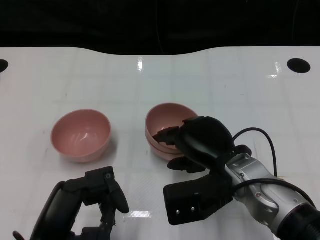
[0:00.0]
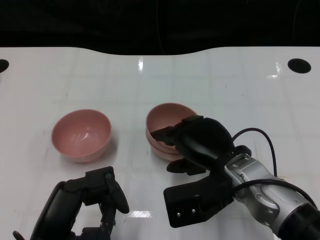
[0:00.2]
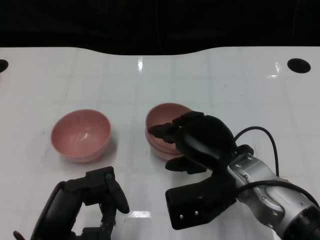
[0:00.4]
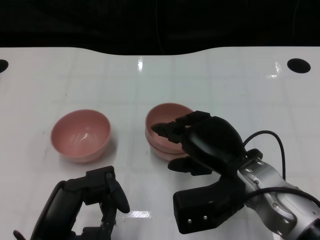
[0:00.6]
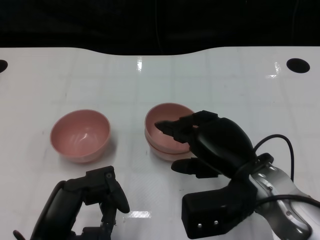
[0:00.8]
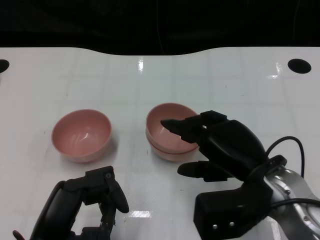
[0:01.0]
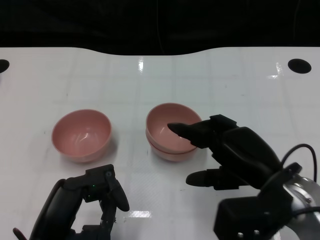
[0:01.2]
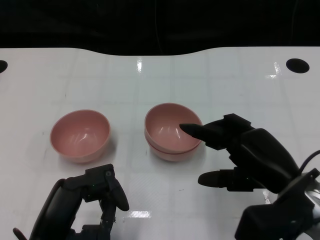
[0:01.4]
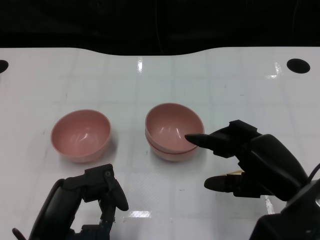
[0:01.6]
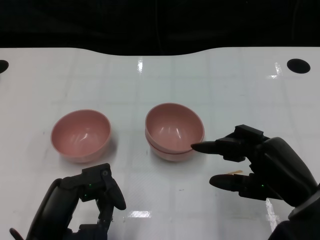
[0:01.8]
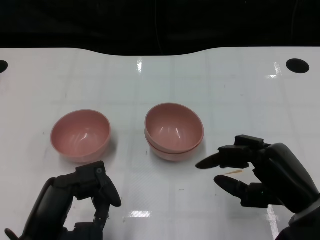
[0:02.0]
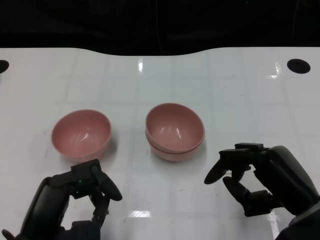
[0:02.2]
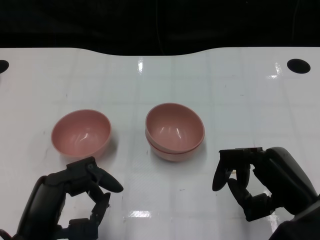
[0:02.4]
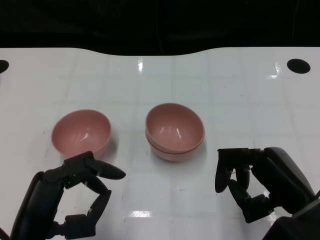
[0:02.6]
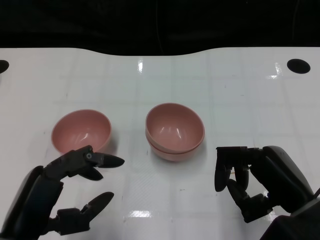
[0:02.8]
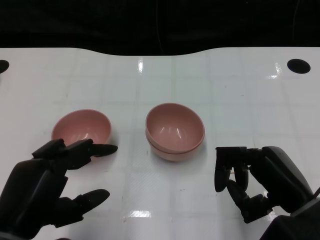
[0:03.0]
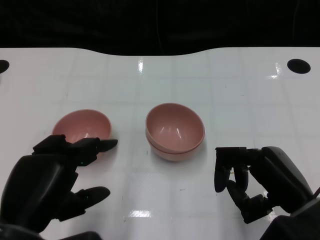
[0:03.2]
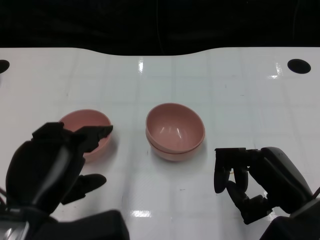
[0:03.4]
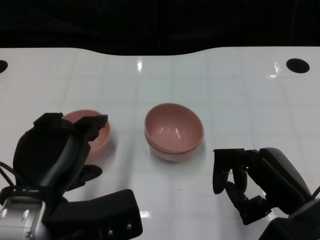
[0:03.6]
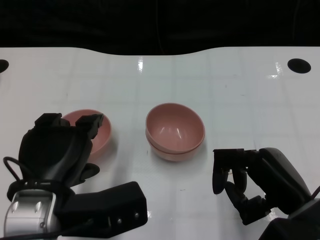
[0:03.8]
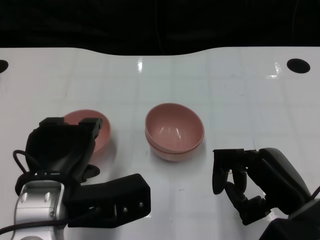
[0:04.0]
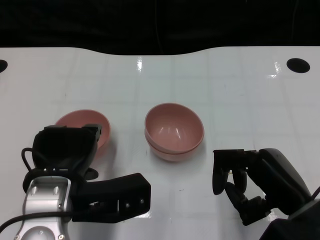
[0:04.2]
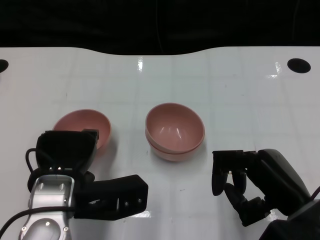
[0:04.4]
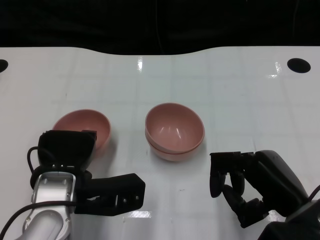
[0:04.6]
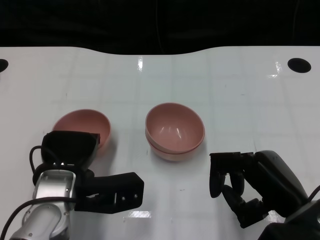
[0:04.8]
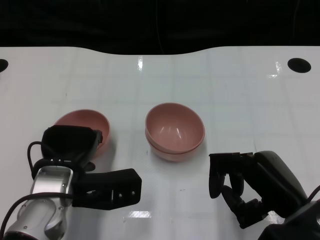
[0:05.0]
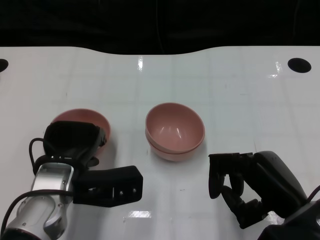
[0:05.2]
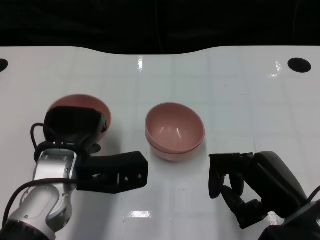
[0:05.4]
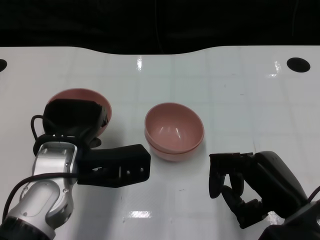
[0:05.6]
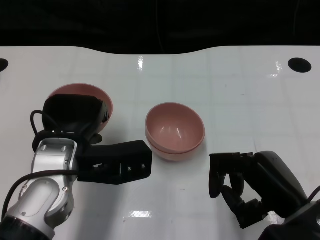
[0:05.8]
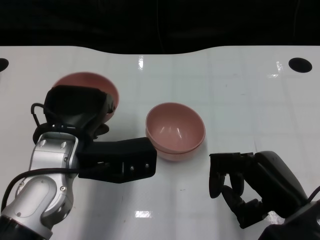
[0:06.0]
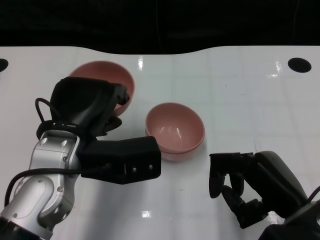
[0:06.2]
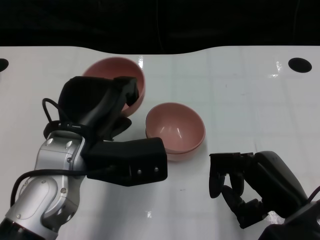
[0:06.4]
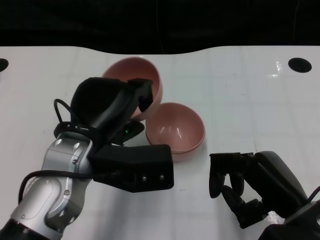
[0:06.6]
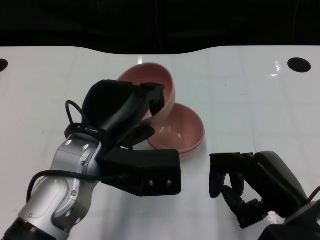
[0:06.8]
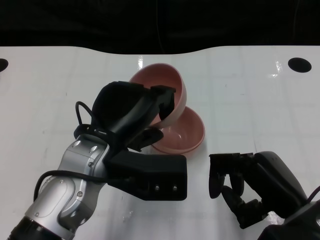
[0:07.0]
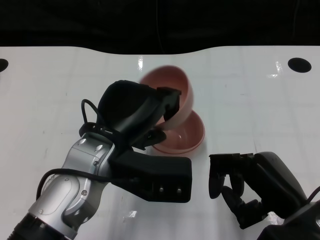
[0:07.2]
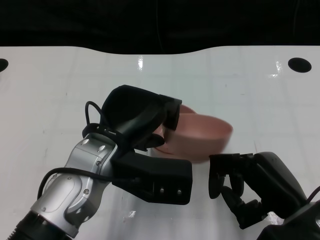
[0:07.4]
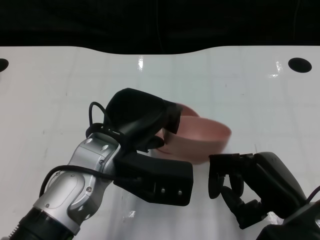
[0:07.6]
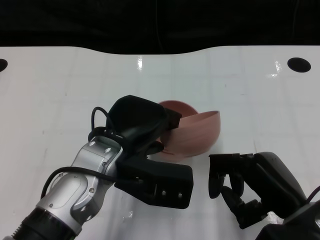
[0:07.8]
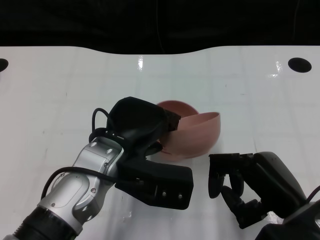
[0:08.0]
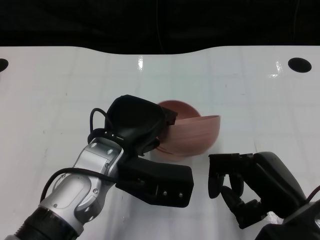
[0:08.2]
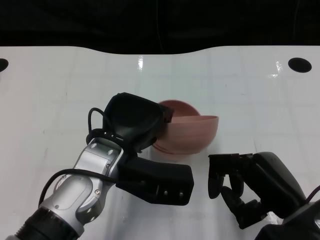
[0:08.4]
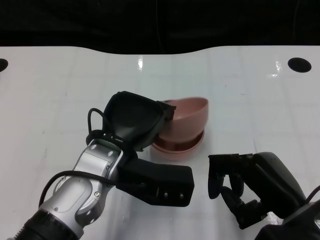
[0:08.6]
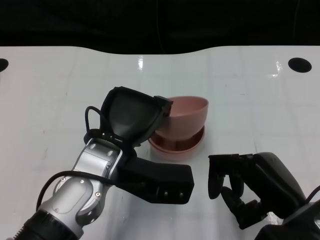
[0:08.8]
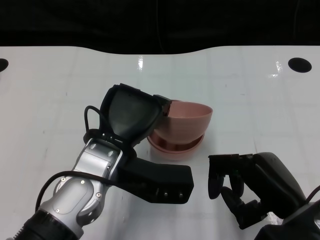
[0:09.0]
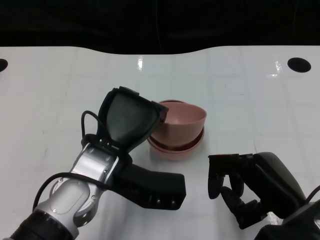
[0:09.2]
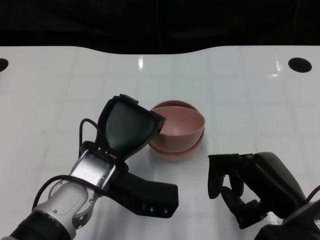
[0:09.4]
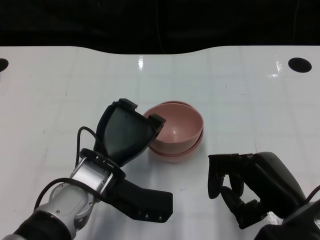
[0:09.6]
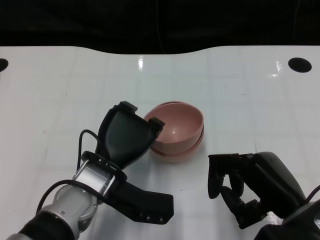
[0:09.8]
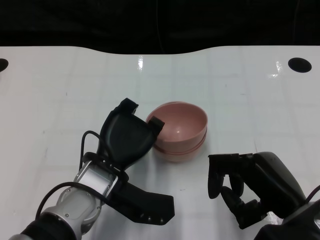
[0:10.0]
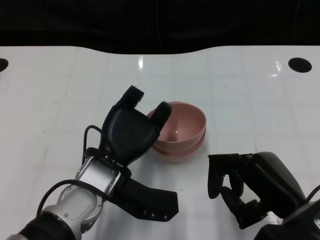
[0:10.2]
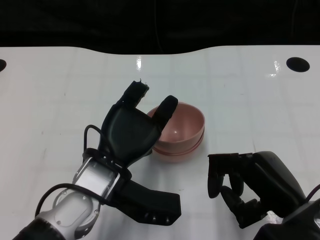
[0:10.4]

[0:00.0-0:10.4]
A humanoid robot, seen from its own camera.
Task of the whole recording: Pick up the bowl on one side of the table and place it on top of the middle bowl, then pick up the bowl on the other side of the table and place it on top of the middle bowls.
Step, 0:01.4 to 0:05.2: Grasp the bowl on the left with the left gripper.
0:00.0 to 0:01.4: The right hand shifts about 10 cm to the right.
0:03.0 to 0:04.4: The left hand moves forward and to the right, approximately 10 cm.
0:04.4 to 0:06.0: The left hand changes place by about 5 cm.
0:06.0 to 0:07.4: The left hand moves about 5 cm.
0:07.4 to 0:09.0: The hands stay close to where they were, moving slightly.
0:09.0 to 0:10.4: The hands make only small movements.

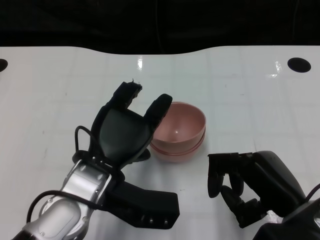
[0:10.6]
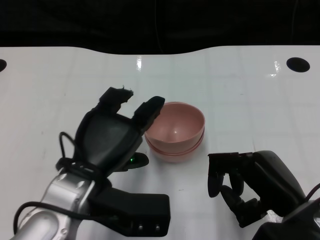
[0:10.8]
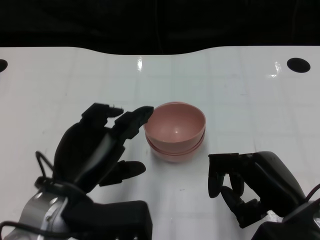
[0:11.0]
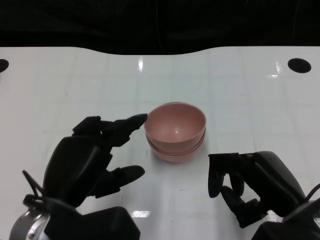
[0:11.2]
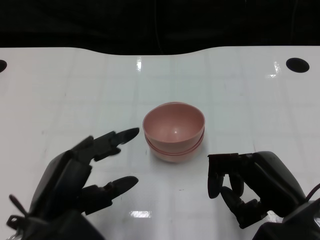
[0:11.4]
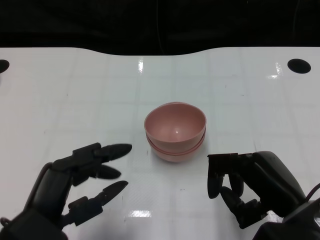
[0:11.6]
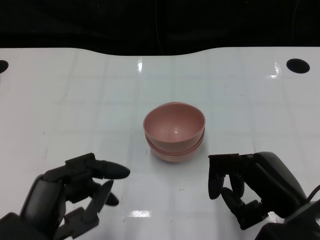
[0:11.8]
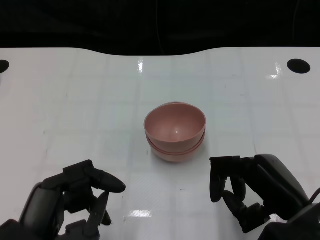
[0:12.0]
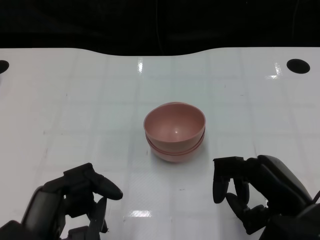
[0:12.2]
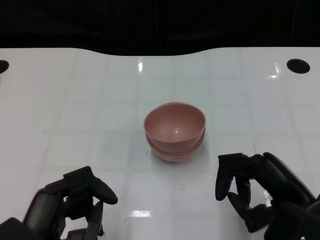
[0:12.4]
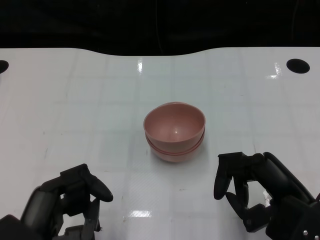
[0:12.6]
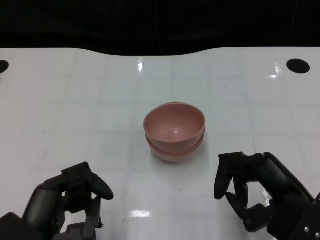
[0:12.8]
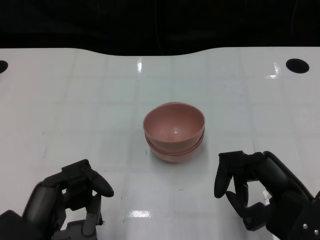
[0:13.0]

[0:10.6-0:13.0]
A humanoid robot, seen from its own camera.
Task of the whole recording: Pick up the bowl on one side of the table and place it on top of the middle bowl, then pick up the bowl on the other side of the table and place it on top of the middle bowls.
0:10.6 to 0:11.8: The left hand travels backward and to the left by roughly 15 cm.
0:11.8 to 0:13.0: There are only small adjustments of the hands.

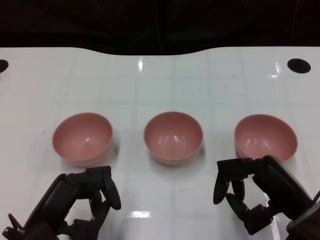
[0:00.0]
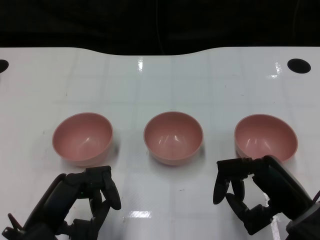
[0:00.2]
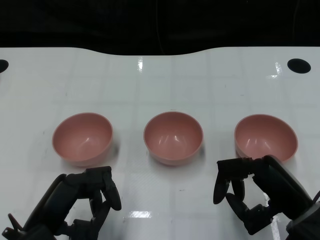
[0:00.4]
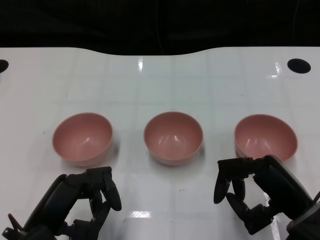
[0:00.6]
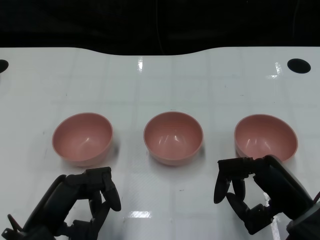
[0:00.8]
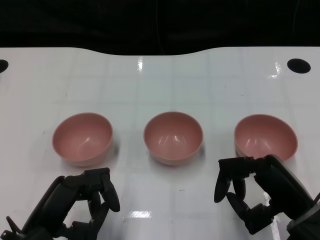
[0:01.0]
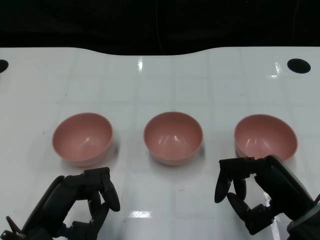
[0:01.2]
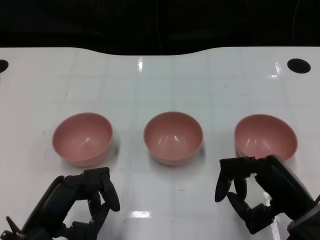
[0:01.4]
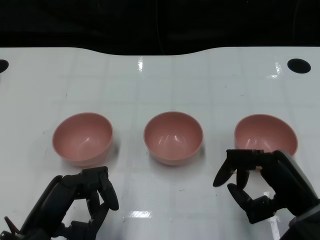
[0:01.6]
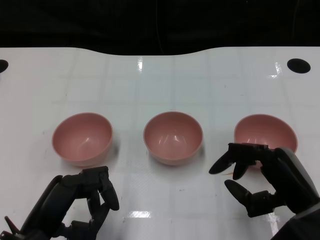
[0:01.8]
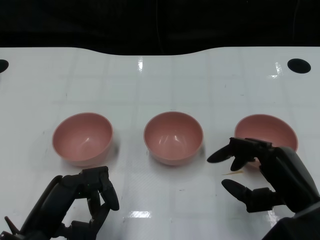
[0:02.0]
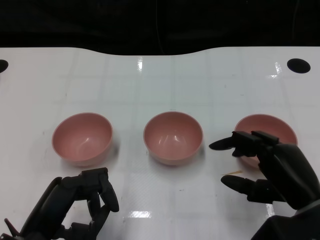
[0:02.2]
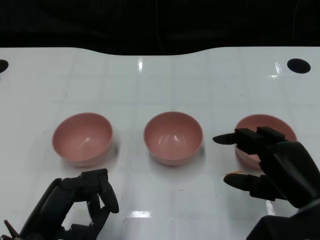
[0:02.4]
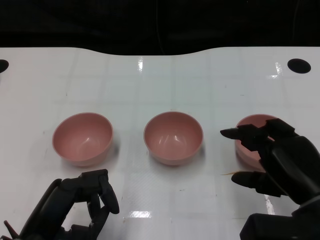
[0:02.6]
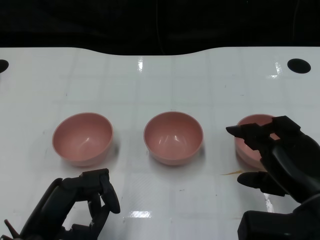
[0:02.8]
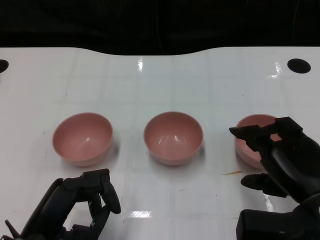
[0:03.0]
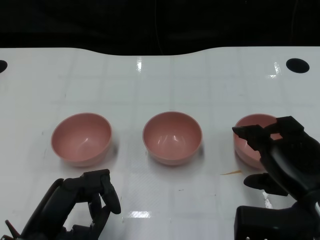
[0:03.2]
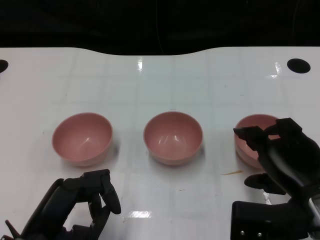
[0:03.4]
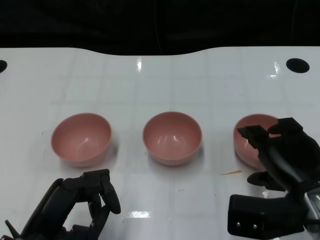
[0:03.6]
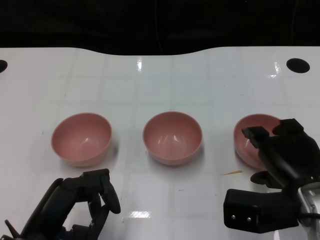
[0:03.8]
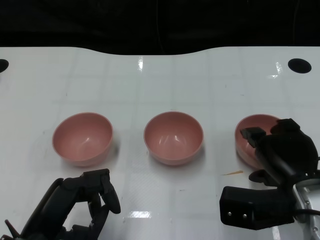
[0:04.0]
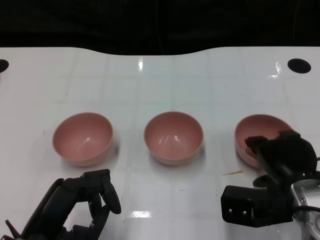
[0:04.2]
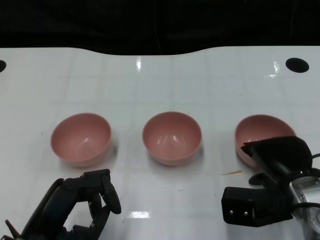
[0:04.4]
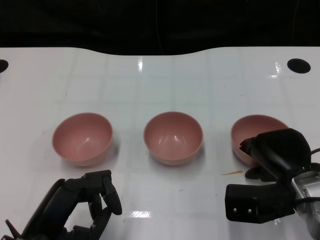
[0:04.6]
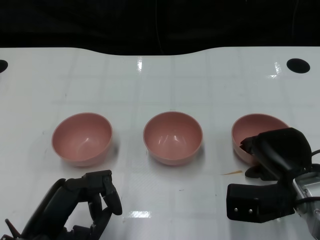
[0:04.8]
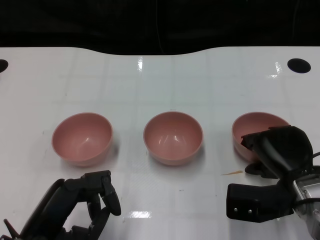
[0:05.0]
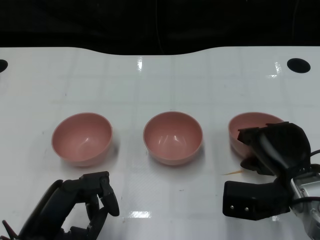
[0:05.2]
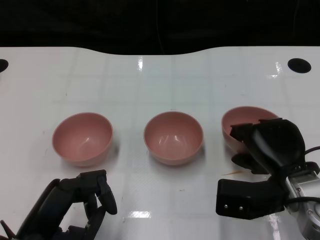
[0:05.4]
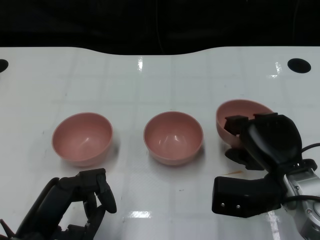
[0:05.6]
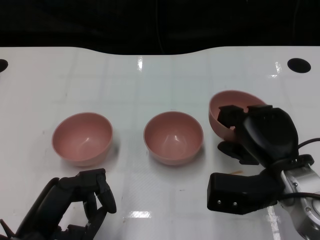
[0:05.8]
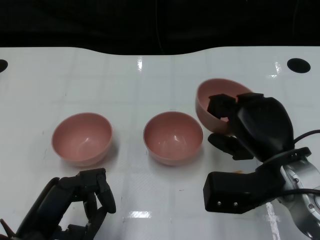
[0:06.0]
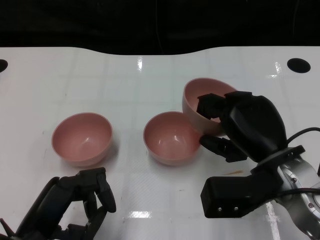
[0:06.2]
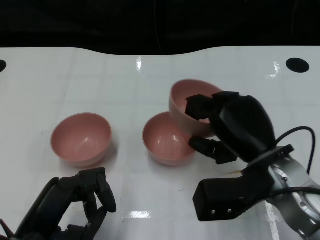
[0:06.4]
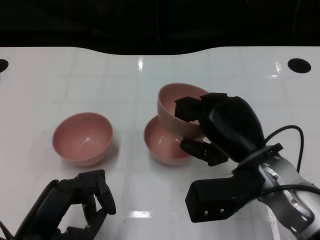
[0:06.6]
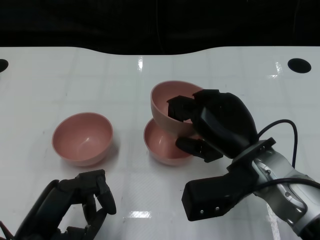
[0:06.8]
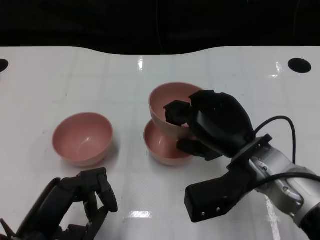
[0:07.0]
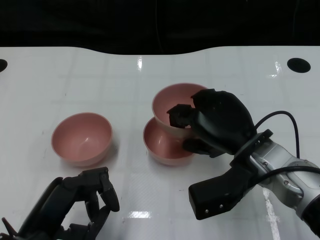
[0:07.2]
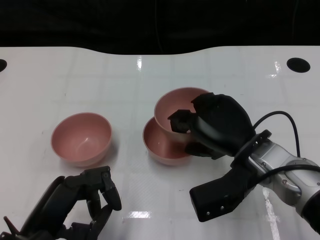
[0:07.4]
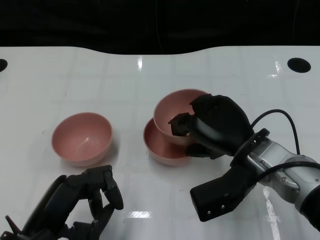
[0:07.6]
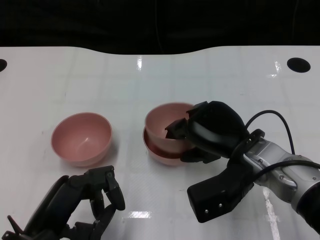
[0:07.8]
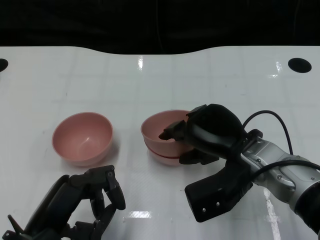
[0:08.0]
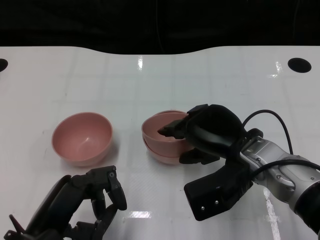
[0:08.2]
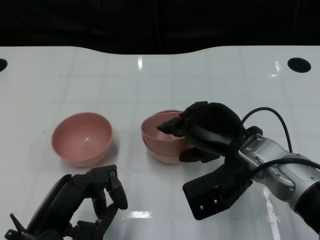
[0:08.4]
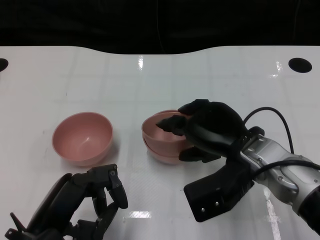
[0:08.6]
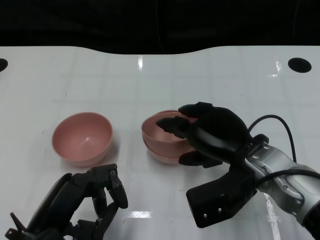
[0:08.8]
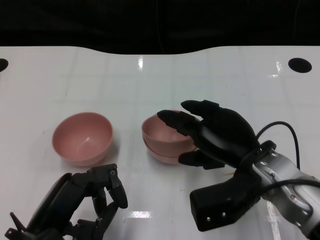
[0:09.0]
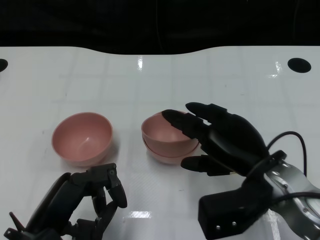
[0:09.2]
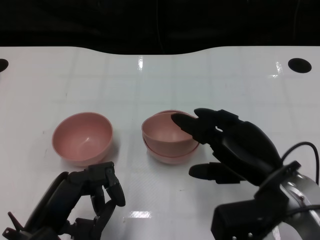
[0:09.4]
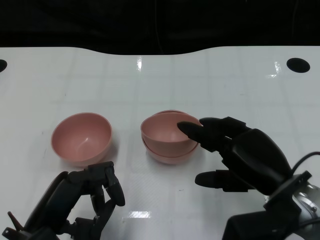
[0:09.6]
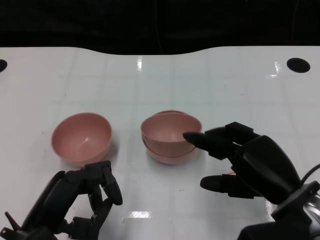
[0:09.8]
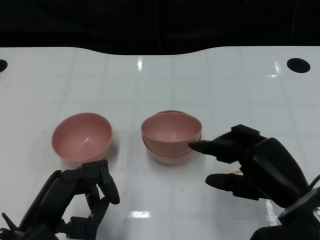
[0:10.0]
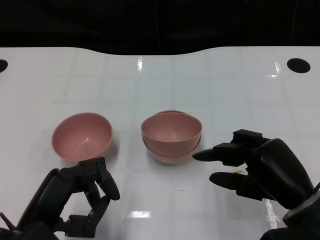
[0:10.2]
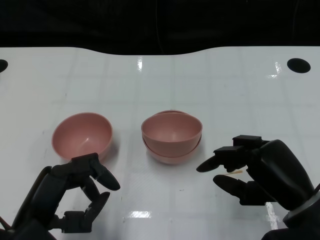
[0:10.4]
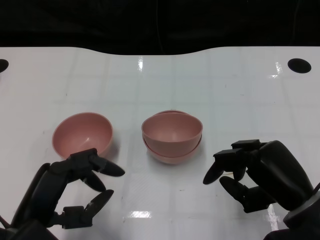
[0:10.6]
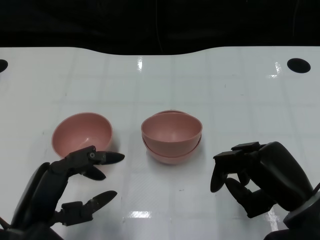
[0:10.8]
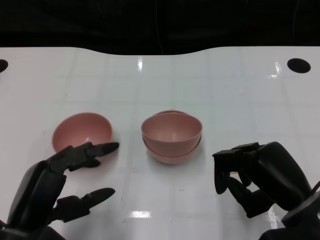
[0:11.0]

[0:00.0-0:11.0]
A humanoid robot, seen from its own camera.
Task of the whole recording: Pick up the bowl on one side of the table and place it on top of the middle bowl, then pick up the bowl on the other side of the table and place it on top of the middle bowls.
Step, 0:01.4 to 0:05.2: Grasp the bowl on the right with the right gripper.
Step, 0:05.4 to 0:09.4: Place the bowl on the right onto the bowl in the middle with right gripper.
0:03.2 to 0:04.8: The right hand goes about 5 cm forward.
0:04.8 to 0:06.2: The right hand travels upward by about 5 cm.
0:06.2 to 0:07.8: The right hand ends up approximately 5 cm from where it was.
0:07.8 to 0:09.4: The right hand heads backward, covering approximately 5 cm.
0:09.4 to 0:11.0: The right hand moves approximately 5 cm.
